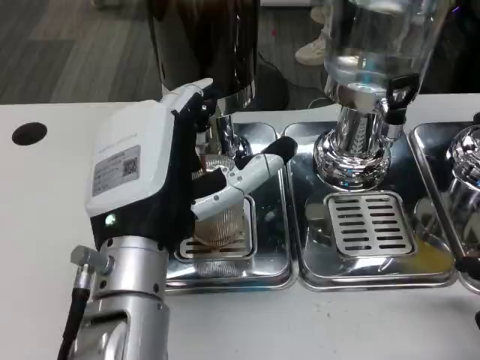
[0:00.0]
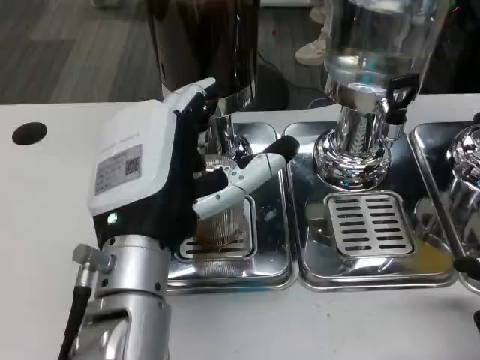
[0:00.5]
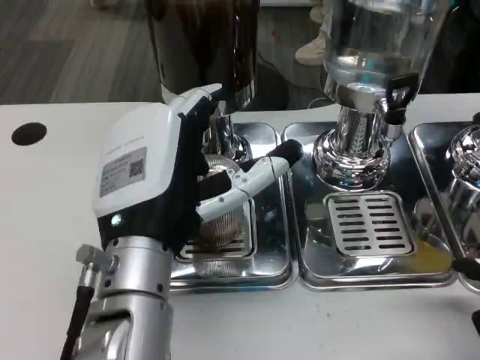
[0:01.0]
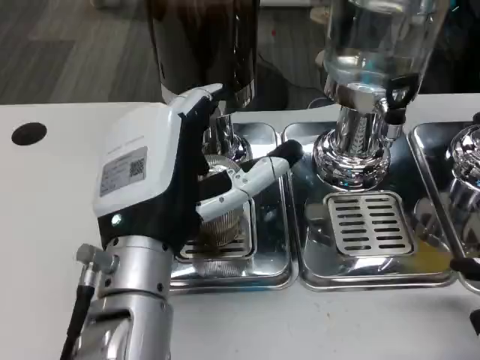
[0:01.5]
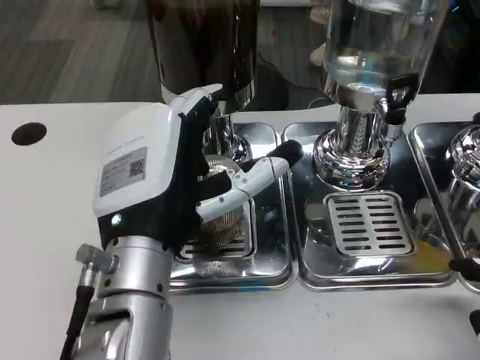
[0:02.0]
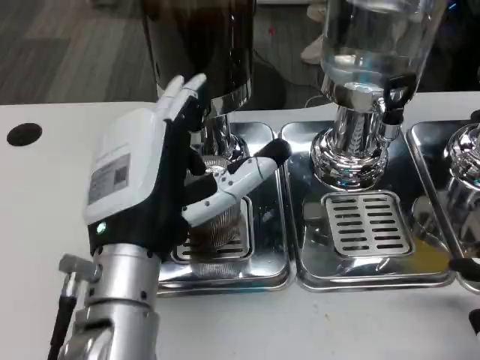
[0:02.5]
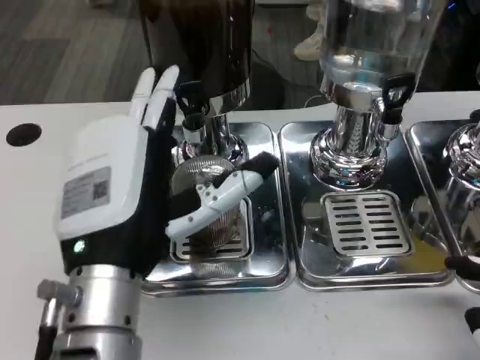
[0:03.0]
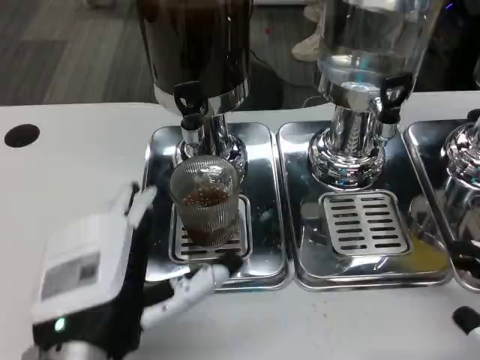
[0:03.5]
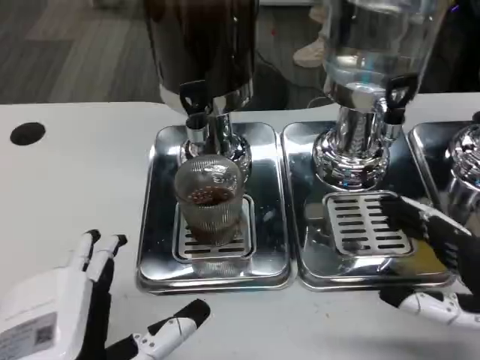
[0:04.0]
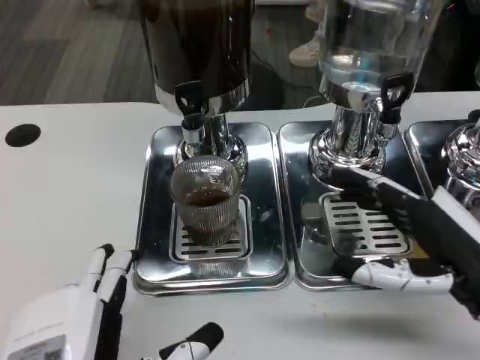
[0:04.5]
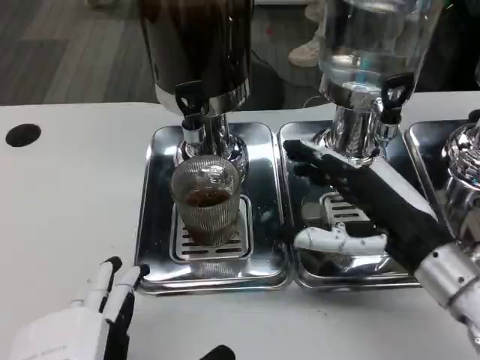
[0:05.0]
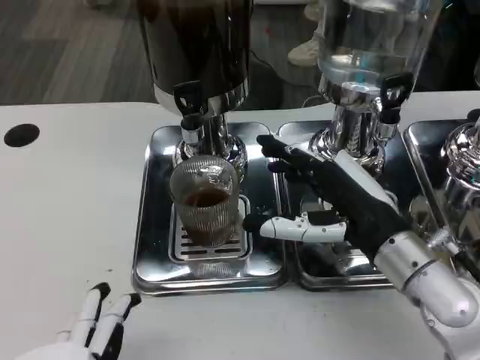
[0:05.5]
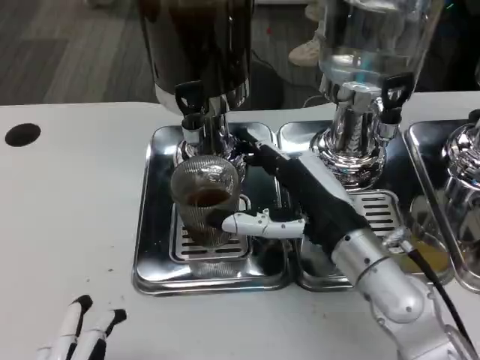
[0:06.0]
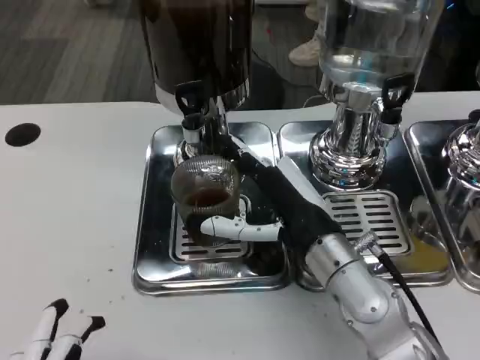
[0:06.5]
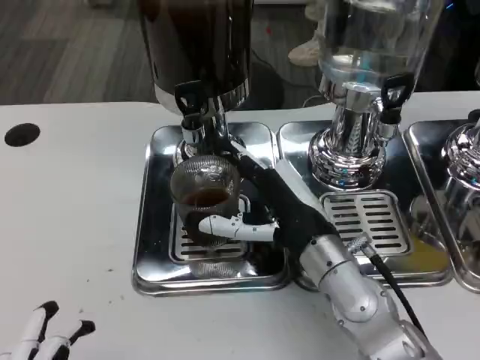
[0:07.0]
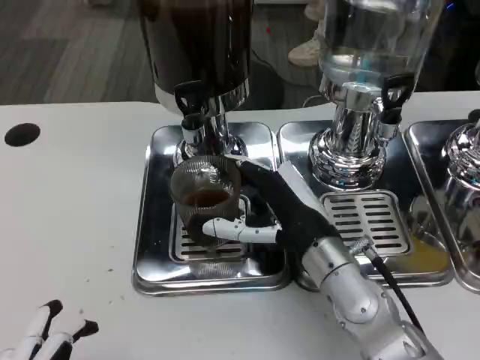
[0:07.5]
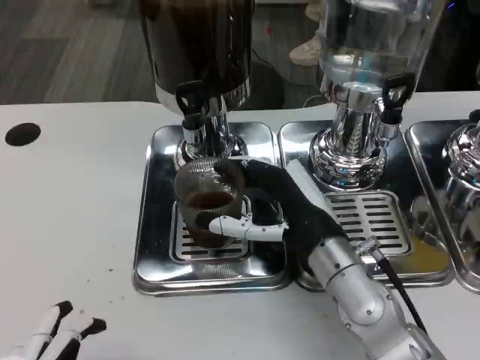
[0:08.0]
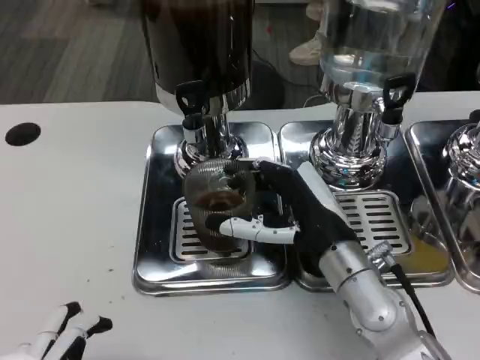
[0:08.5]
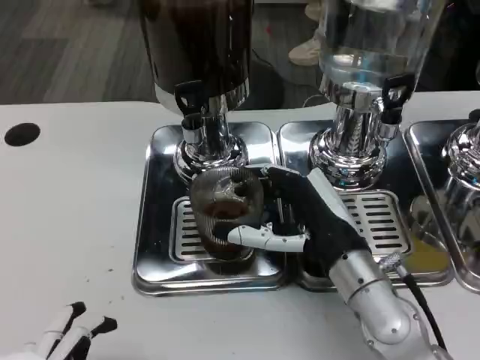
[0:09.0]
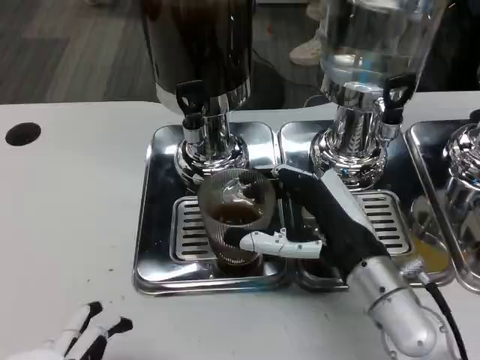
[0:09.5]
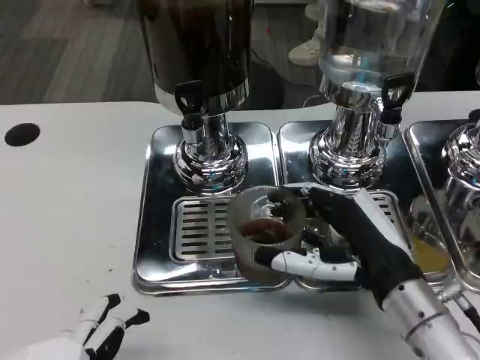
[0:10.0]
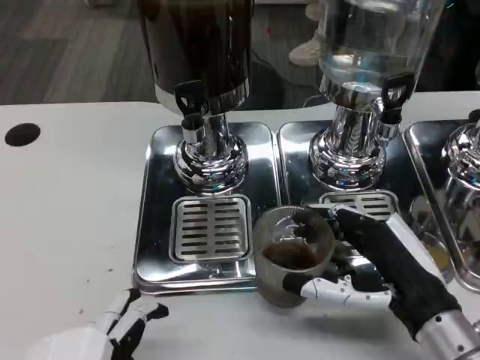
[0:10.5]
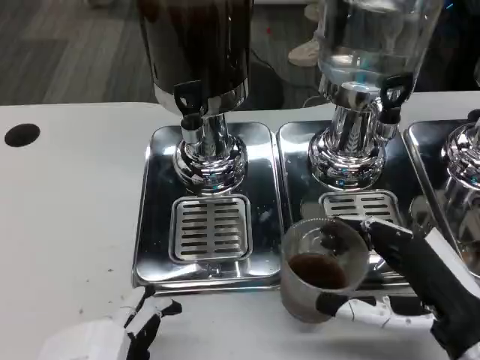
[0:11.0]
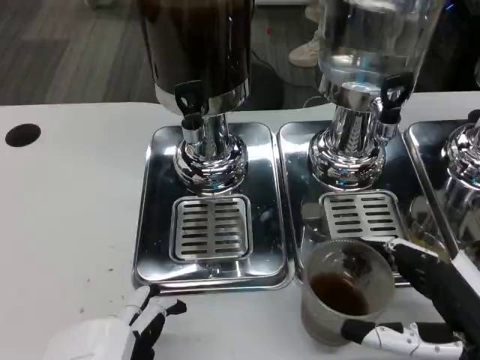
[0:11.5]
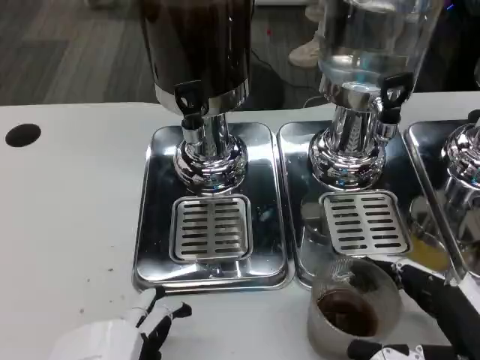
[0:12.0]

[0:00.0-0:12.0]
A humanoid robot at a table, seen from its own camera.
Task of the whole recording: Grasp the cup under the faucet to collect the drink, then remove the cup.
0:00.0 to 0:02.0: Both hands stay put.
0:02.0 to 0:04.0: The left hand moves backward and to the left, some 10 cm. Meanwhile the right hand travels forward by some 10 cm.
0:04.0 to 0:06.0: The left hand moves backward, roughly 10 cm; the right hand is displaced to the left and forward by about 20 cm.
0:06.0 to 0:08.0: The hands move only a little.
0:08.0 to 0:10.0: The right hand goes approximately 10 cm to the right and backward.
0:10.0 to 0:12.0: The right hand heads backward and to the right, covering about 10 cm.

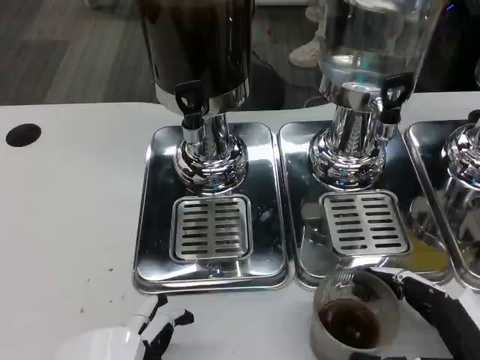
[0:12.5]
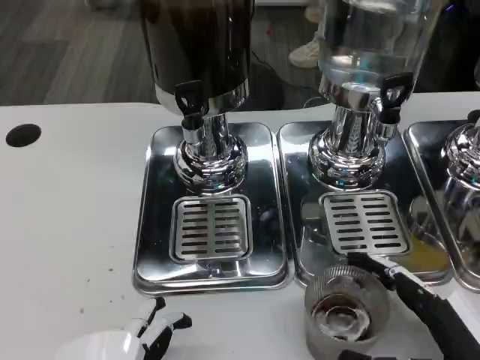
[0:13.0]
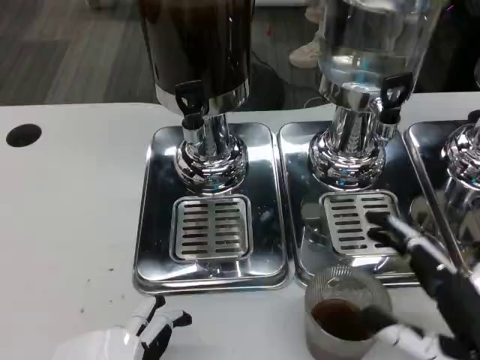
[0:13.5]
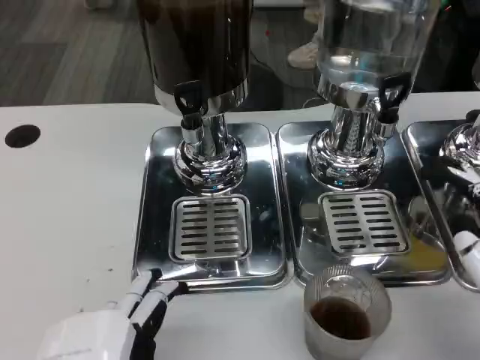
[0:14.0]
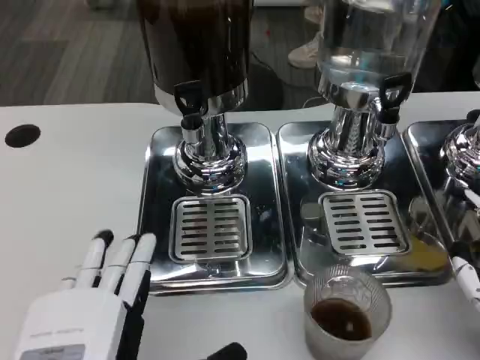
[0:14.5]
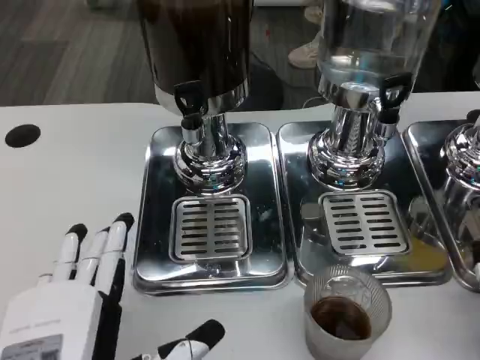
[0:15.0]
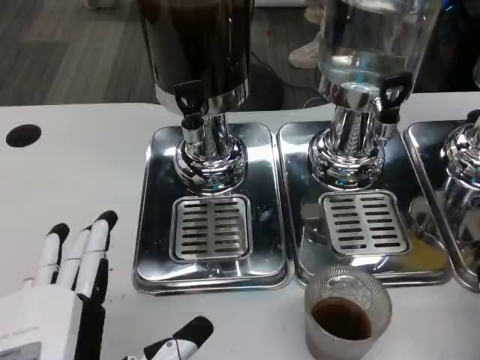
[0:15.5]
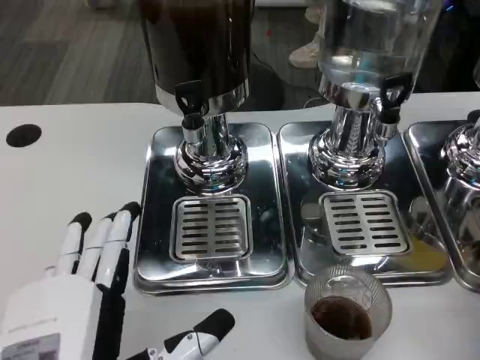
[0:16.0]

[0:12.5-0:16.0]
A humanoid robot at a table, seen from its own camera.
Task of the whole recording: Grasp the cup under the faucet to collect the drink, then remove the cup.
0:12.5 to 0:14.5: The right hand shifts by approximately 5 cm.
0:14.5 to 0:16.0: The hands move only a little.

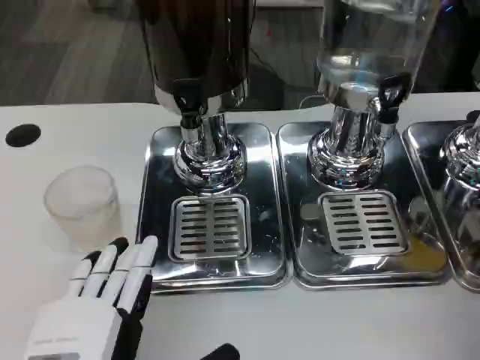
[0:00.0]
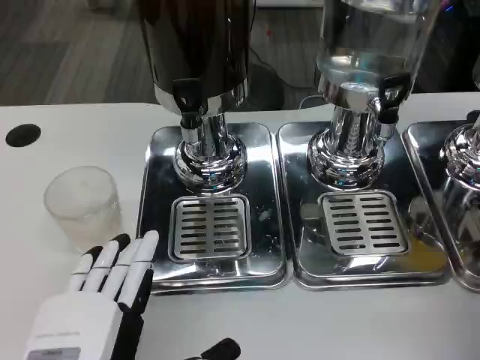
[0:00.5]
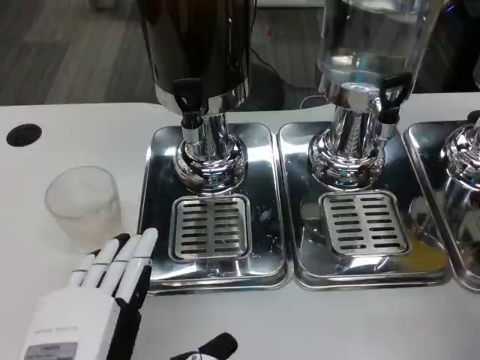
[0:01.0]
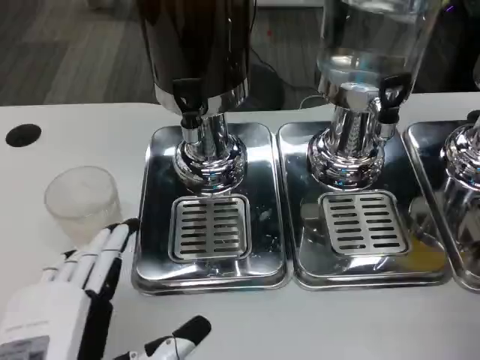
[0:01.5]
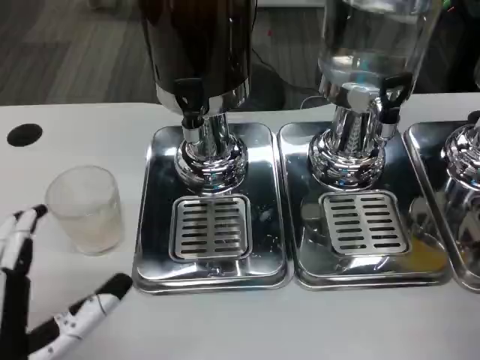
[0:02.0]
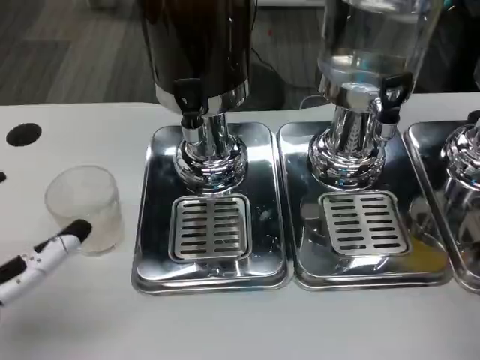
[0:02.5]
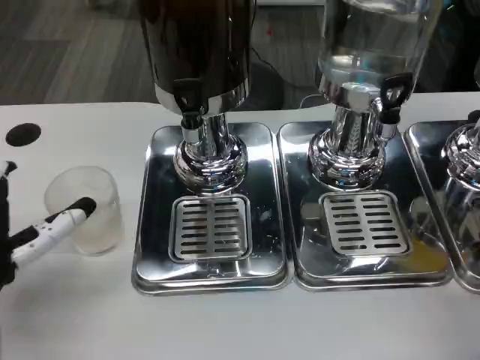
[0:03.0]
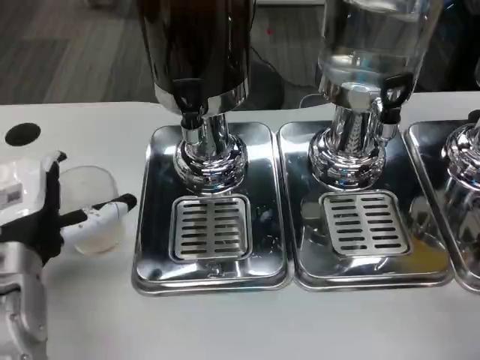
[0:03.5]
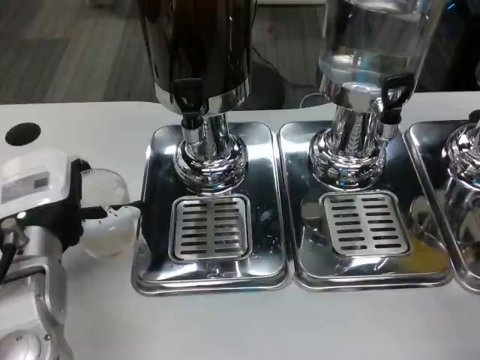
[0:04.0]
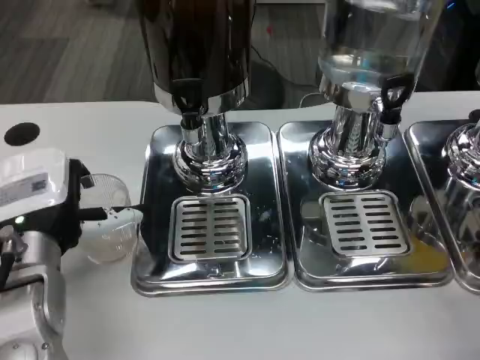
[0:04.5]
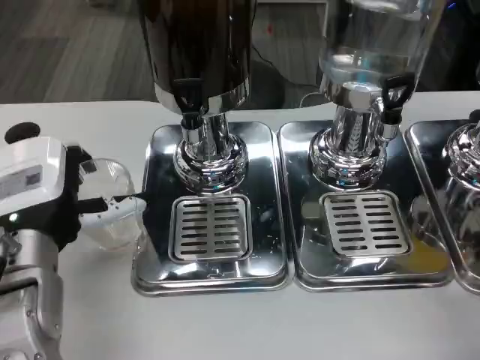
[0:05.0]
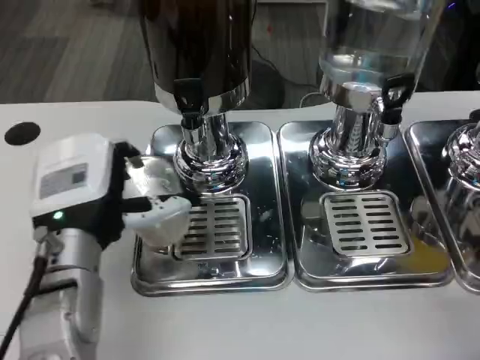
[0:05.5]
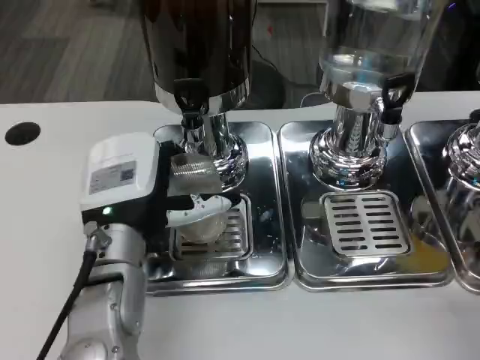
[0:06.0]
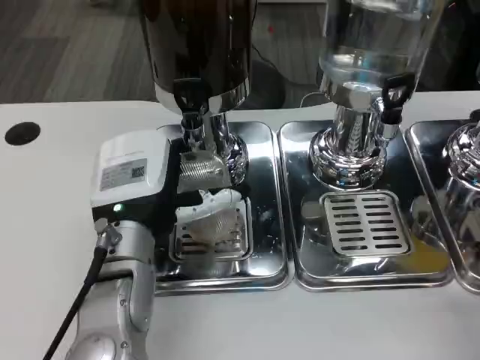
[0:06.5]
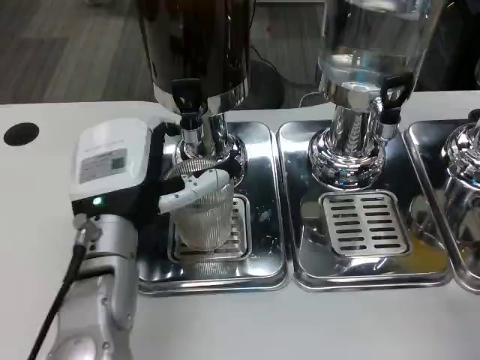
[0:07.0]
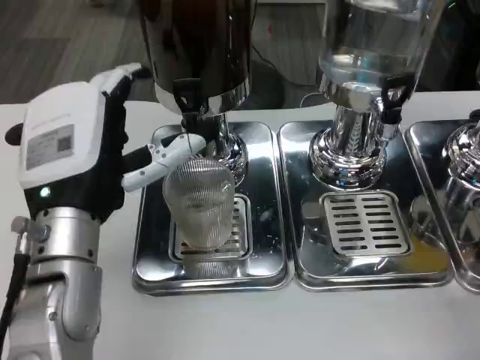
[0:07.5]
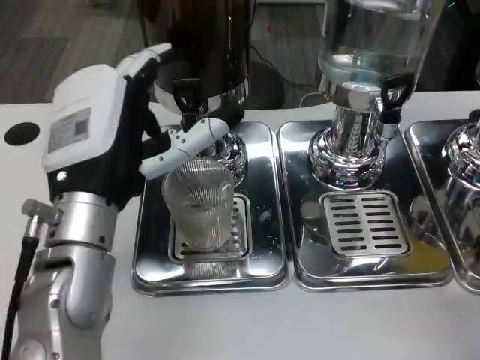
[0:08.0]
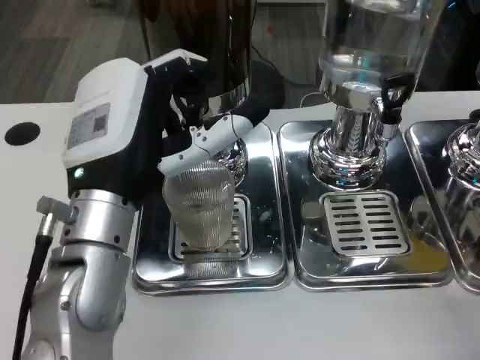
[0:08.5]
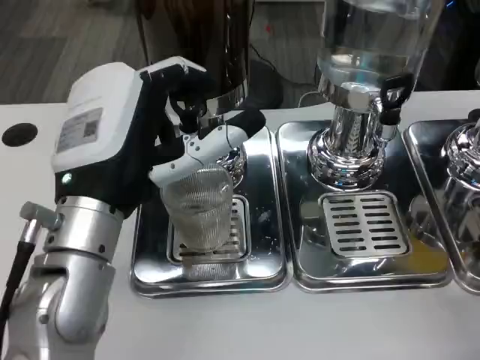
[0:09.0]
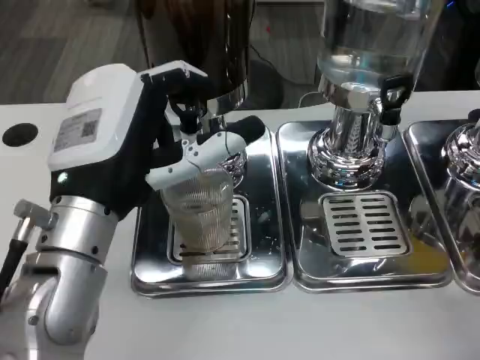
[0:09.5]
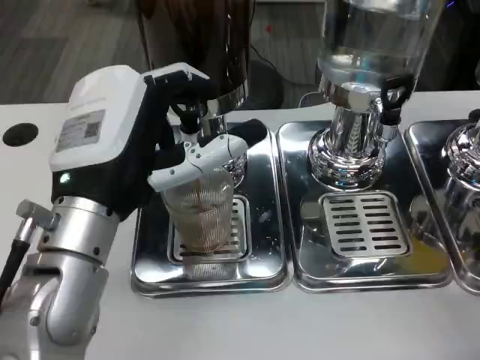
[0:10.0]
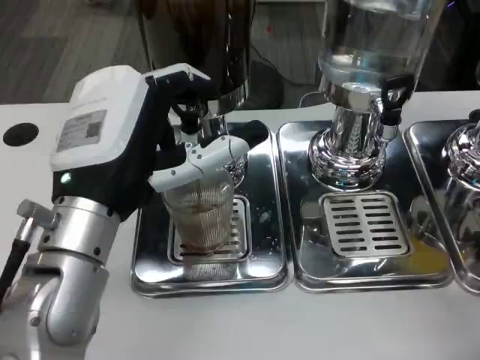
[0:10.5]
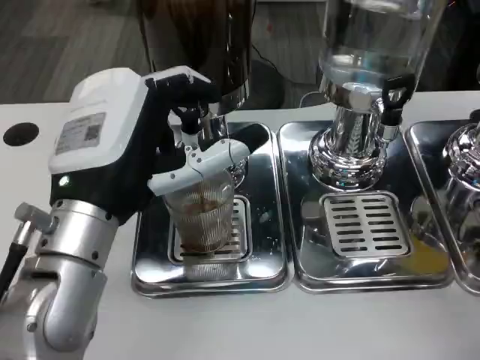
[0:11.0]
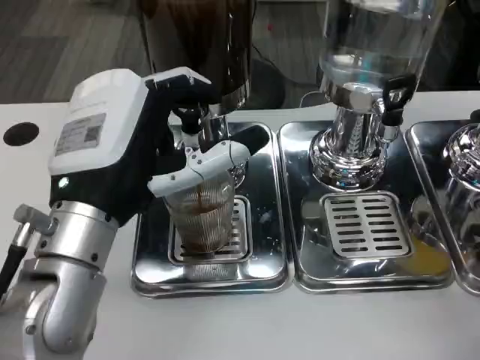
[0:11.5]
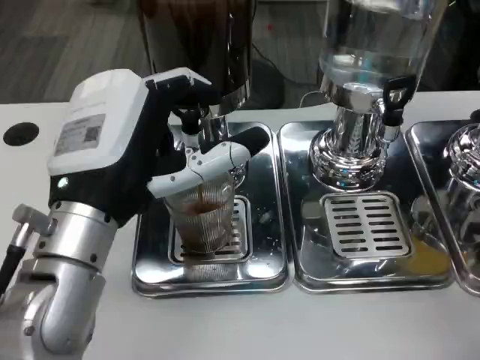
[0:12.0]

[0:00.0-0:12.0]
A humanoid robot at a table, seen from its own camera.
Task of the whole recording: Grasp the cup under the faucet to collect the drink, then remove the cup.
0:00.0 to 0:02.0: The left hand changes place by approximately 5 cm.
0:02.0 to 0:04.0: The left hand is displaced forward by some 15 cm.
0:04.0 to 0:06.0: The left hand travels to the right by approximately 5 cm.
0:06.0 to 0:08.0: The left hand travels upward by about 5 cm.
0:08.0 to 0:12.0: The hands make only small movements.
